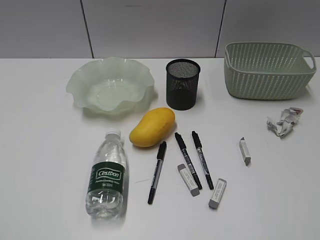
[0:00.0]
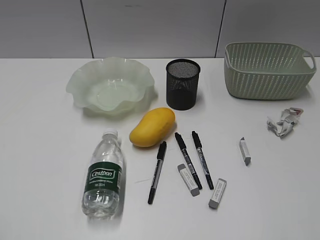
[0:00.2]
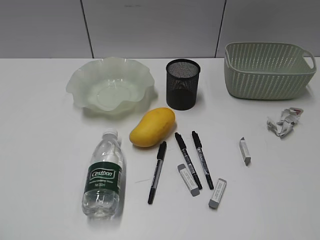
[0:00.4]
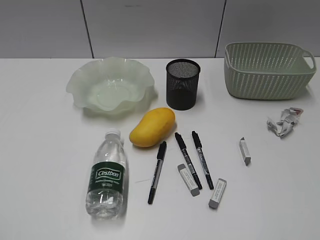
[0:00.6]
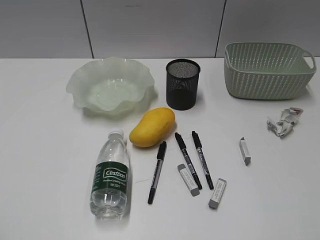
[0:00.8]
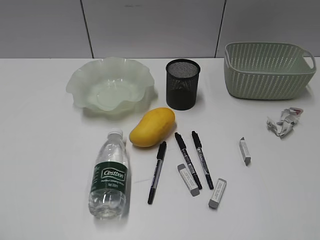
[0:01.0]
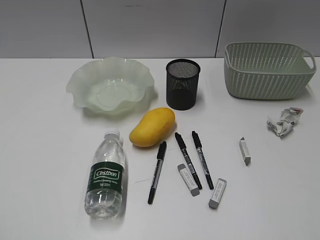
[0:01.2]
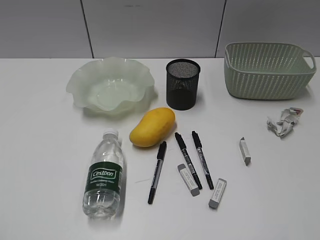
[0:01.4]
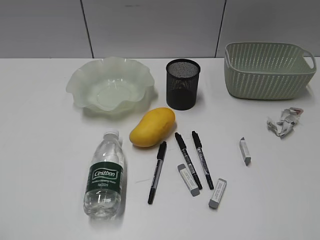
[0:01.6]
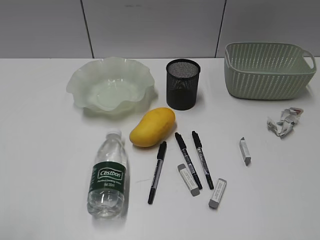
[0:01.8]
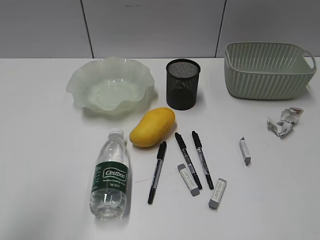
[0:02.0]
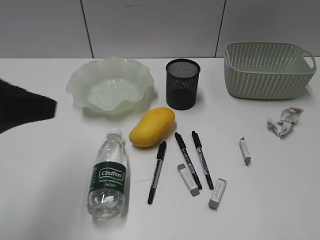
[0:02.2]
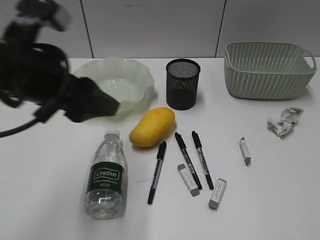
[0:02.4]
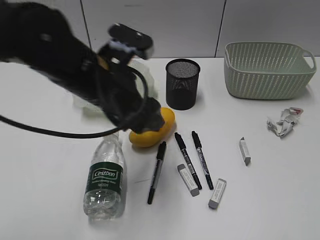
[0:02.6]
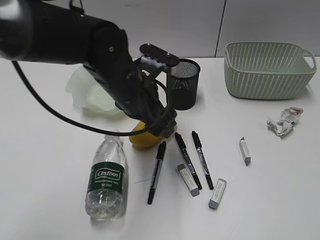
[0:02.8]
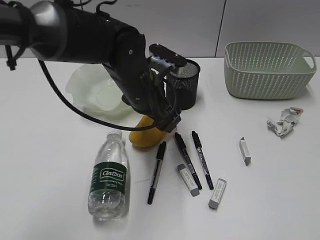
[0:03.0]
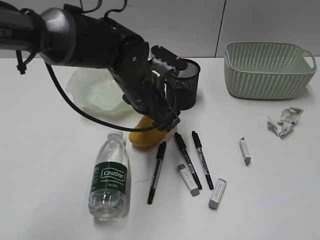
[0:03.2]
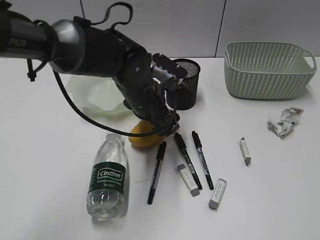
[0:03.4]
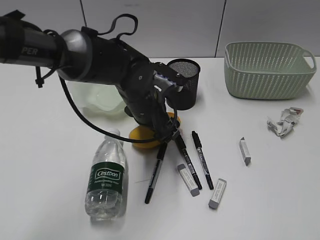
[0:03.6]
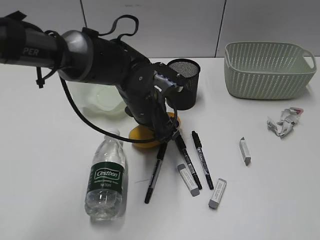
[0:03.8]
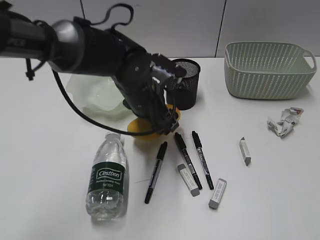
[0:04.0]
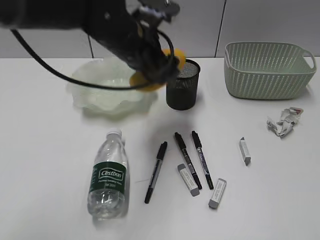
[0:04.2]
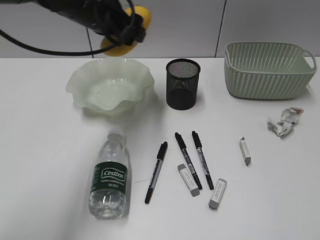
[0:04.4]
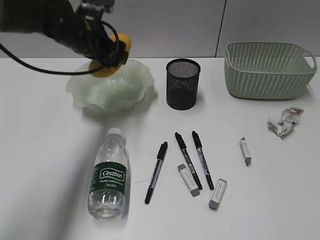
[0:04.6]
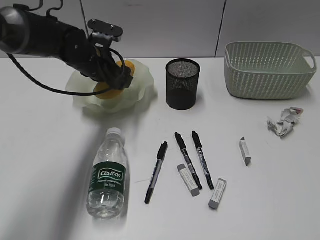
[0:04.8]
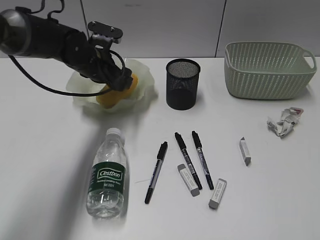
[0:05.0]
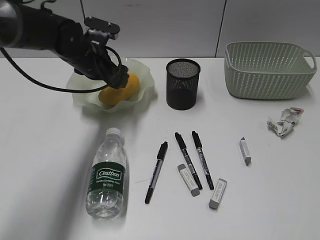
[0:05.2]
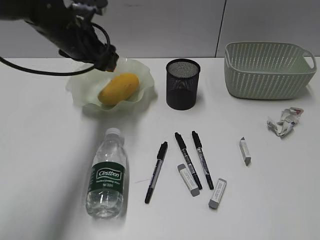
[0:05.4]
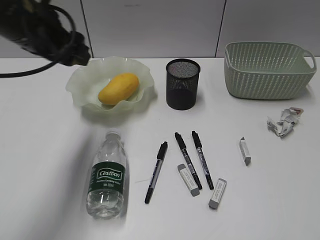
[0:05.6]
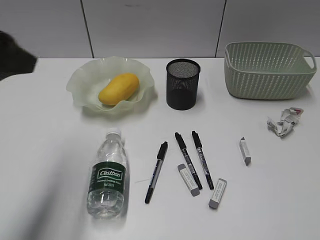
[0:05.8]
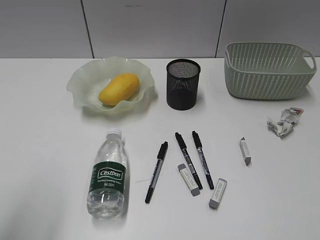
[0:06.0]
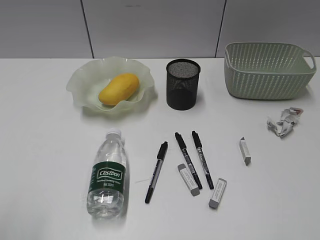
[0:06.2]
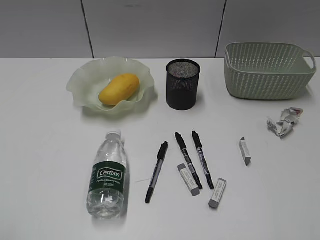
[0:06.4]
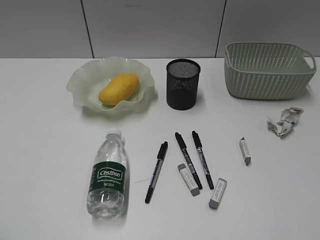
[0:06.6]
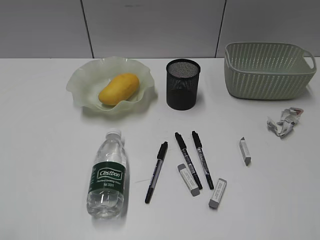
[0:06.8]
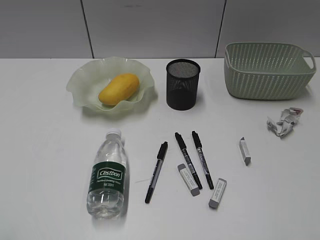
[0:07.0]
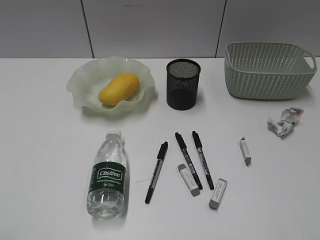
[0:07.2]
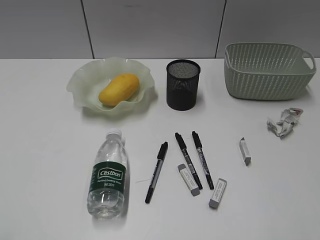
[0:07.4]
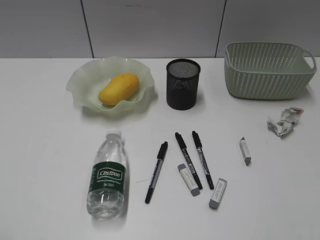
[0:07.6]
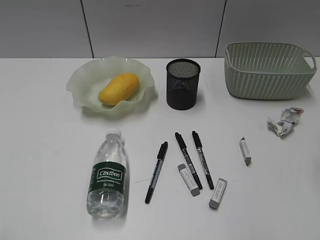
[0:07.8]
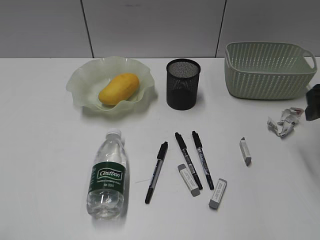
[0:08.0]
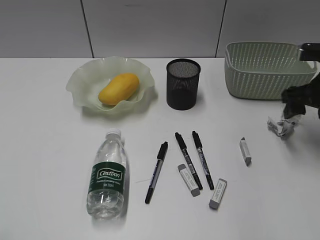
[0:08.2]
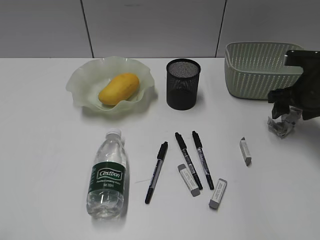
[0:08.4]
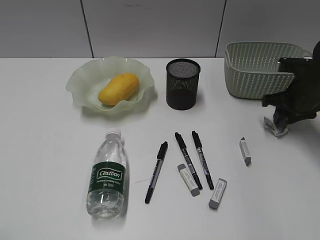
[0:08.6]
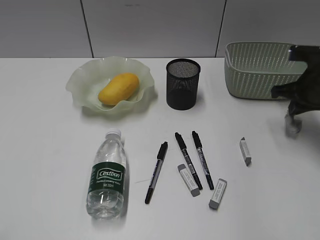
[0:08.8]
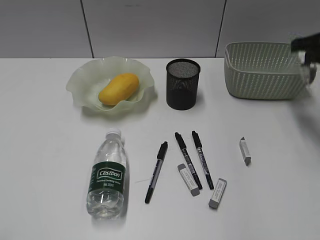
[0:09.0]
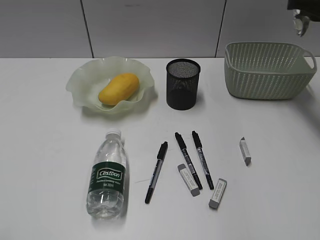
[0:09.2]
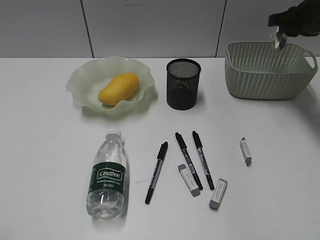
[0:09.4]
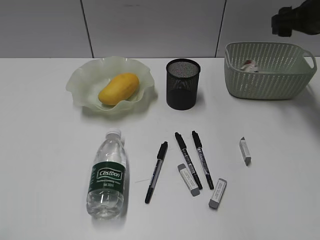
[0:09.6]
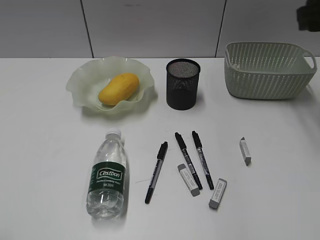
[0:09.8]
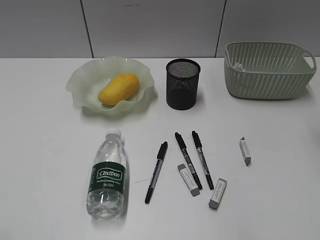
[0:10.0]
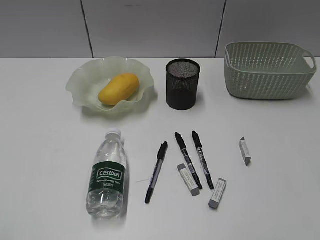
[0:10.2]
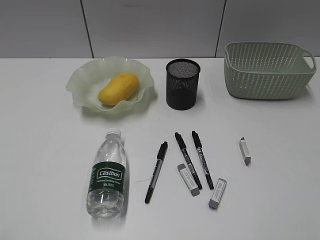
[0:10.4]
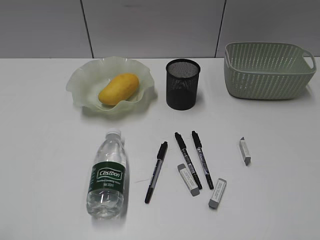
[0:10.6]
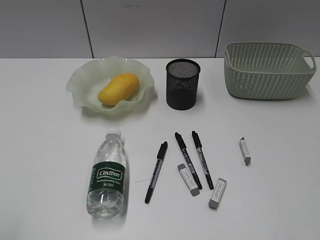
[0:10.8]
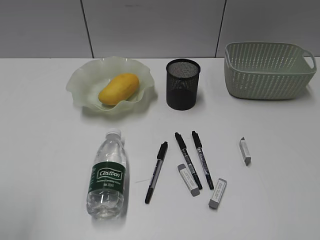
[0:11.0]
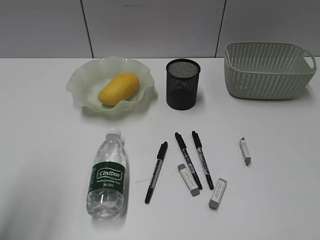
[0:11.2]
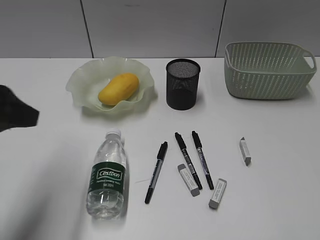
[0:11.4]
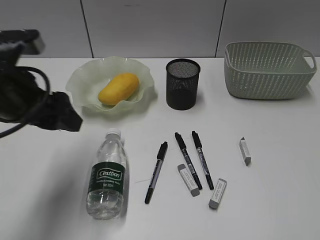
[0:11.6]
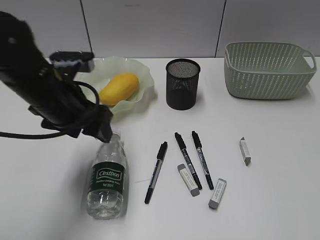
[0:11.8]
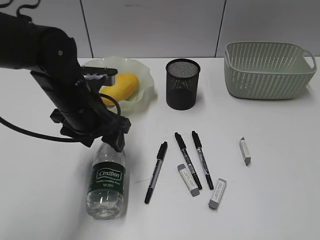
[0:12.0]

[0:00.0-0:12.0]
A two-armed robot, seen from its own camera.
Step, 1.6 to 3.8 s: Grasp the mango with left gripper.
Step, 4.0 to 5.2 s: Place the mango in the plate with left gripper.
Step, 5.4 to 8.8 s: Grasp the waste paper with right gripper.
Step, 9.0 to 9.6 s: Place the waste paper in the basket with right gripper.
1.6 to 3.0 s: The left gripper goes some 40 cm forward and to the right, and opens its fingers.
3.0 to 4.4 s: The left gripper moves upward, to the left and forward, approximately 15 cm.
4.4 to 6.0 s: The left gripper moves backward and to the left, roughly 35 cm.
6.0 to 7.6 s: The left gripper travels backward and to the left by some 15 cm.
7.6 to 9.0 s: The right gripper shifts roughly 25 cm forward, and closes up.
9.0 to 10.4 s: The right gripper is displaced backward by about 25 cm, and opens its fingers.
10.4 to 12.0 s: The right gripper moves backward, about 10 cm. Meanwhile the left gripper shifts about 40 cm forward, to the right and downward.

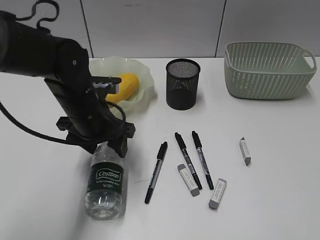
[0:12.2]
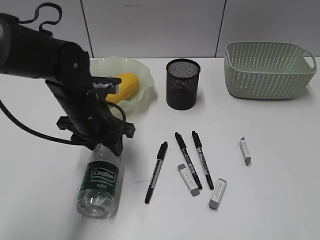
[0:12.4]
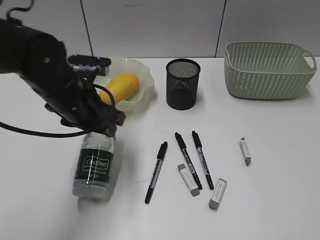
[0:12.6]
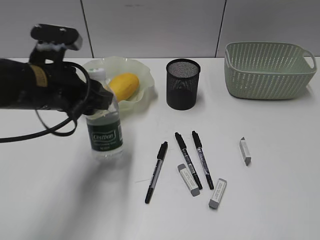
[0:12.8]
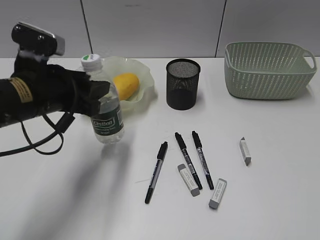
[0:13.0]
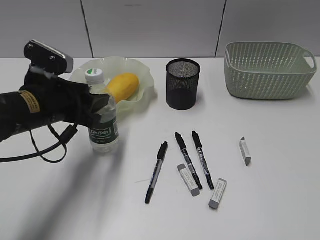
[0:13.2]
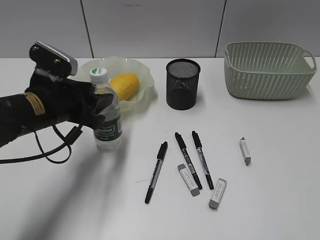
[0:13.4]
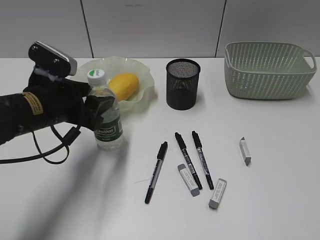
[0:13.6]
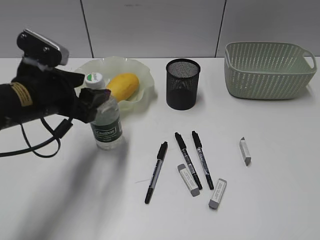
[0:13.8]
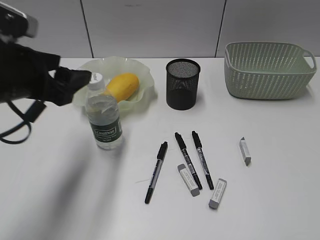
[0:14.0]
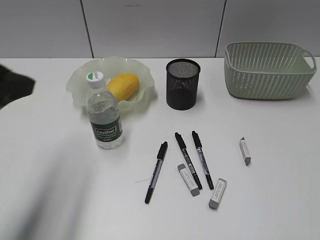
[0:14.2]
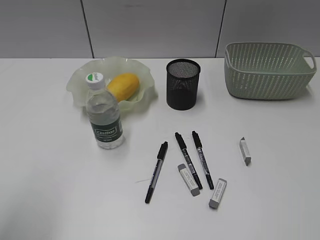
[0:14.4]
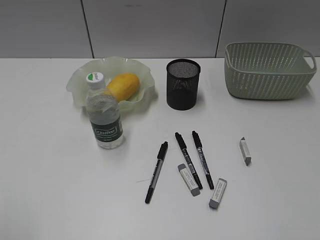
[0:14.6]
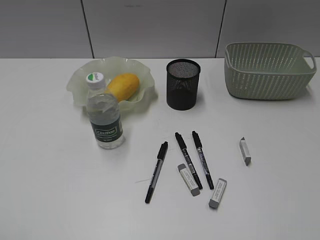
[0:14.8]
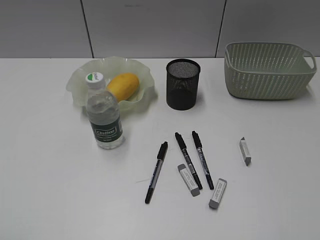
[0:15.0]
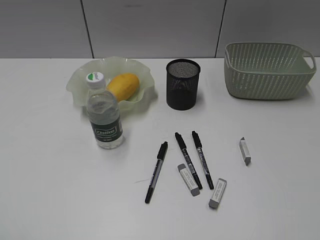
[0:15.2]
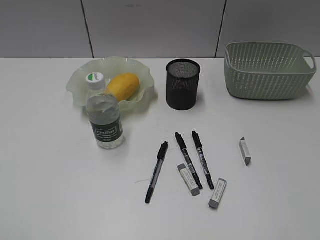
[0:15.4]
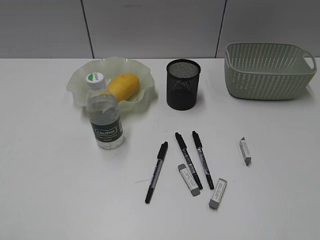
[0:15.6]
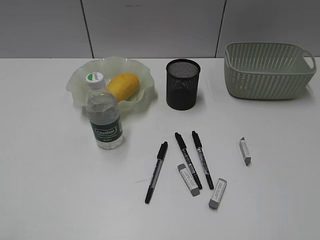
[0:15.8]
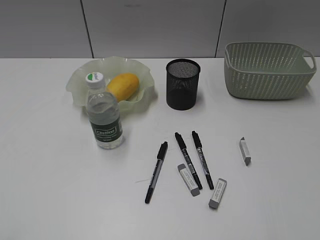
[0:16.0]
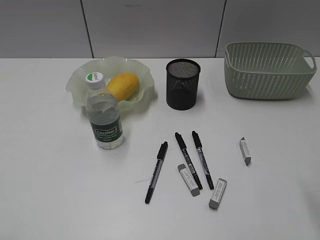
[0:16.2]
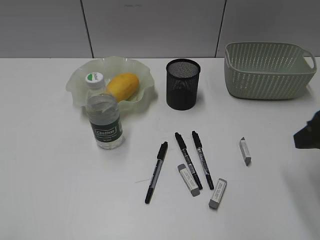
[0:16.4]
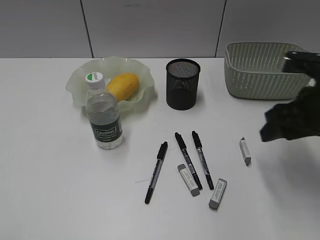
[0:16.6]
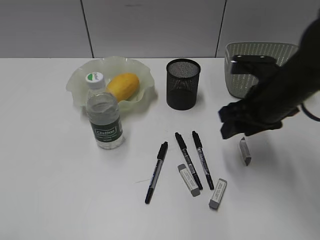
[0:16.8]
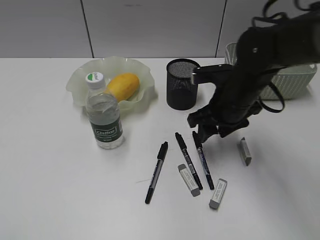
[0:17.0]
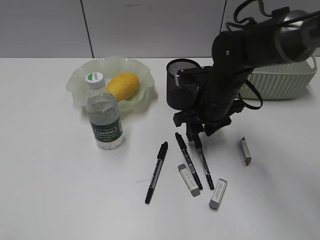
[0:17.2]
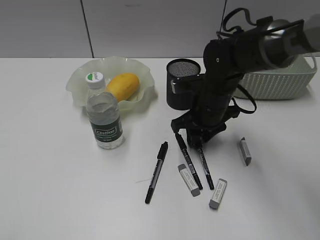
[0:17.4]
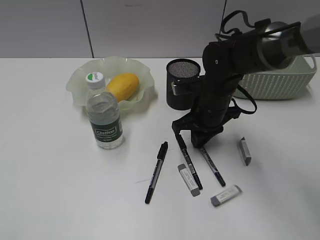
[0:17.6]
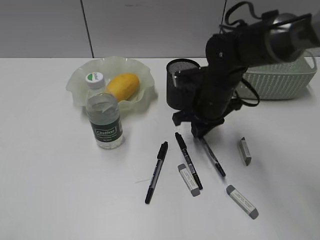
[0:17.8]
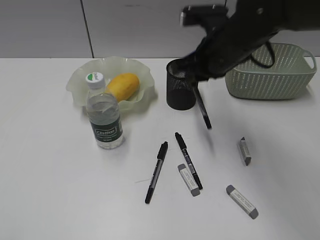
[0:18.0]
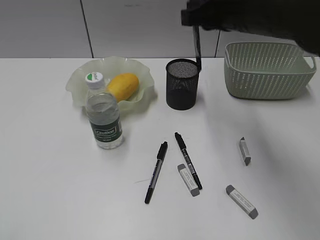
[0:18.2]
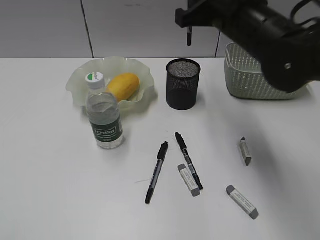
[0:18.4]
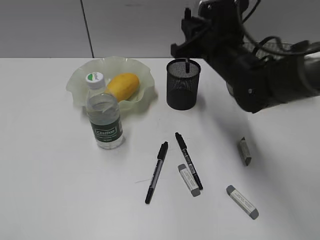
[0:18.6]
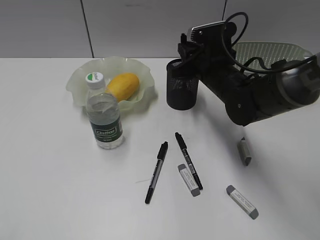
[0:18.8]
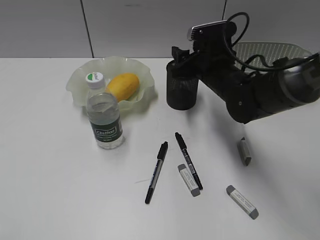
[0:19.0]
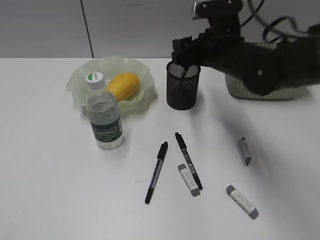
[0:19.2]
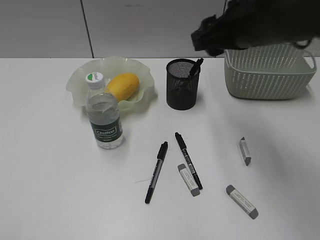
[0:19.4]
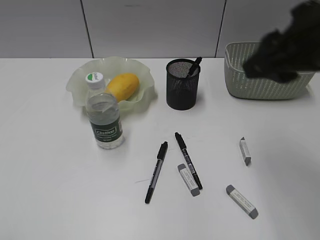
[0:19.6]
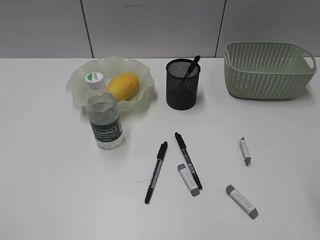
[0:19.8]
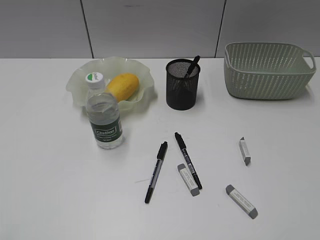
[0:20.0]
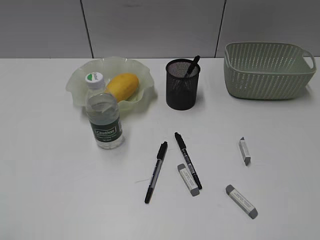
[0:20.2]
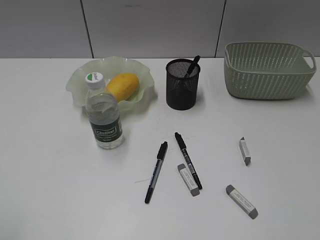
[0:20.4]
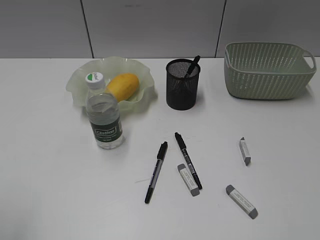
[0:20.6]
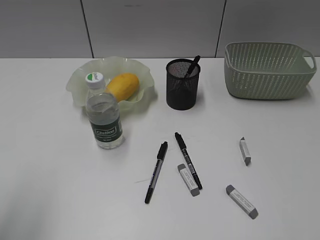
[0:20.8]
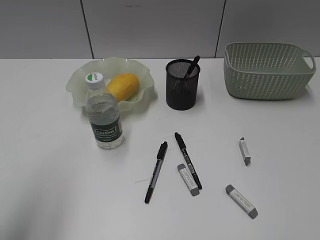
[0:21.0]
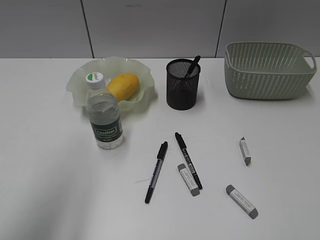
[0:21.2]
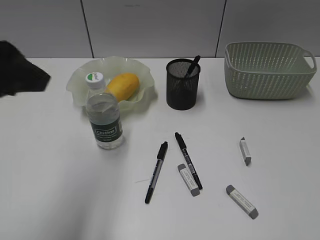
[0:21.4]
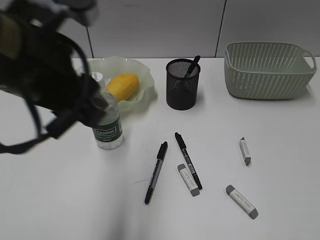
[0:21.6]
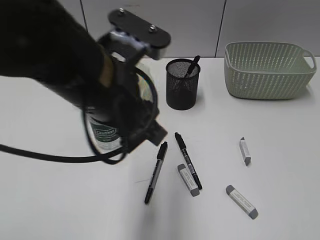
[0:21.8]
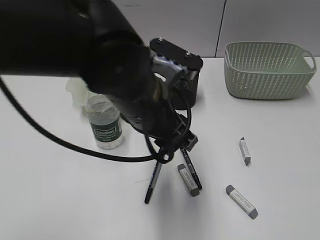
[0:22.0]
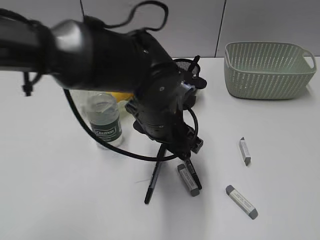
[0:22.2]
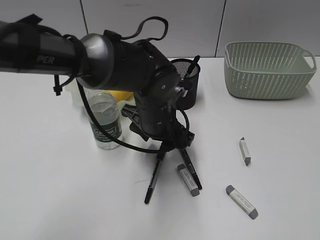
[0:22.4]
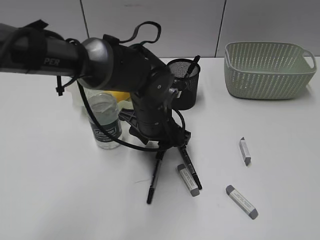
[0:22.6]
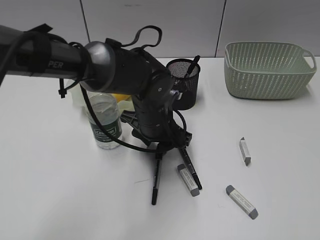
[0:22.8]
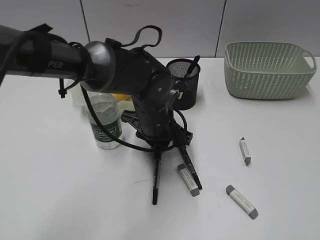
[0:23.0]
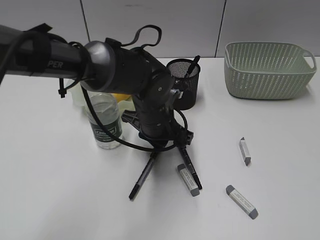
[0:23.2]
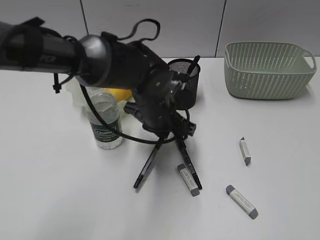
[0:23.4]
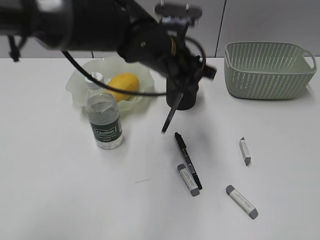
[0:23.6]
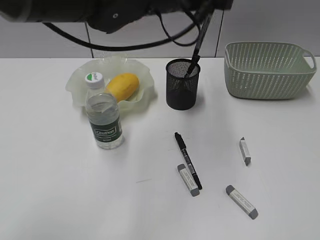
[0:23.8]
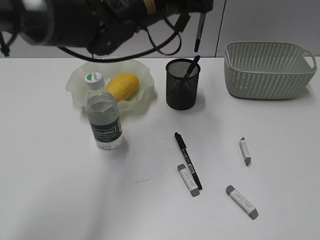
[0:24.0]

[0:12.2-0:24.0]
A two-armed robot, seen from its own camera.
Step, 12.6 to 13.8 s: Stand the bottle with left gripper.
Step, 14.0 to 17.6 s: Grasp the black pen with right gripper.
Step, 17.8 to 19.2 s: Place the black pen in pen holder with right gripper.
Step, 19.4 to 23.2 s: Grasp the black pen with left gripper.
12.2 to 13.6 s: The left gripper travels to the left by some 5 cm.
13.6 to 15.2 s: The left gripper shifts about 35 cm backward, to the left and upward.
15.2 to 16.6 s: The right gripper moves forward, about 25 cm.
16.6 to 18.2 s: The right gripper goes about 15 cm to the left, upward and forward, and closes.
18.2 to 19.6 s: The right gripper heads backward and to the right, covering approximately 10 cm, goes downward and returns, about 15 cm each way, and opens up.
19.6 to 21.0 s: The left gripper goes roughly 15 cm forward and upward. The right gripper goes approximately 25 cm backward and to the right.
21.0 to 22.6 s: The left gripper goes about 40 cm to the right, downward and forward.
22.6 to 24.0 s: The left gripper is displaced upward and forward by approximately 15 cm, and closes.
